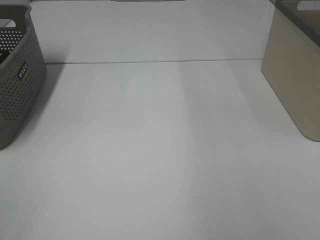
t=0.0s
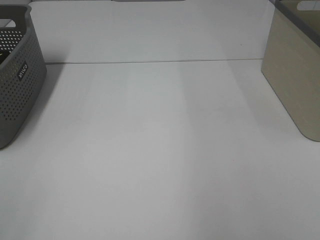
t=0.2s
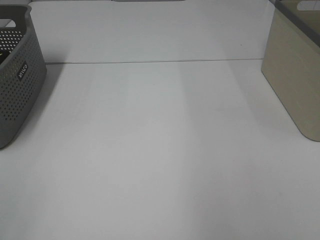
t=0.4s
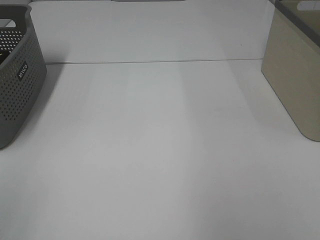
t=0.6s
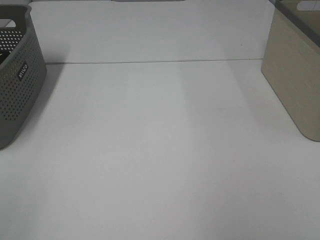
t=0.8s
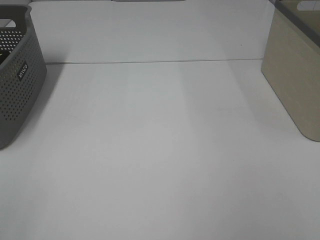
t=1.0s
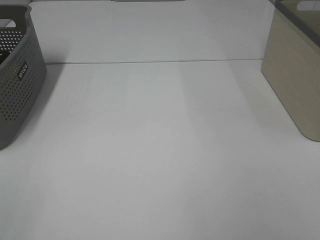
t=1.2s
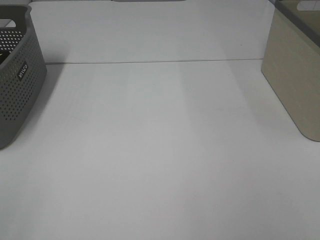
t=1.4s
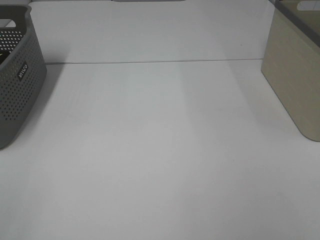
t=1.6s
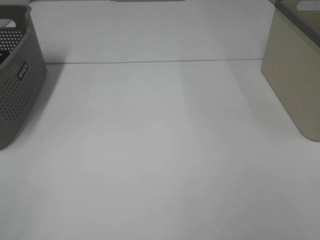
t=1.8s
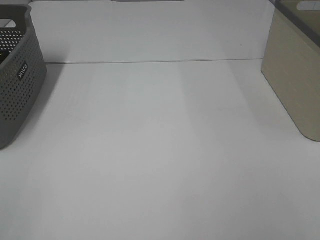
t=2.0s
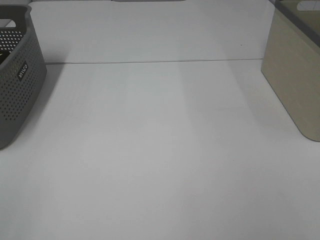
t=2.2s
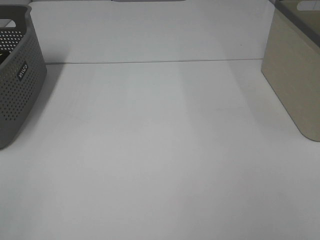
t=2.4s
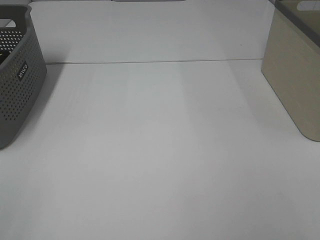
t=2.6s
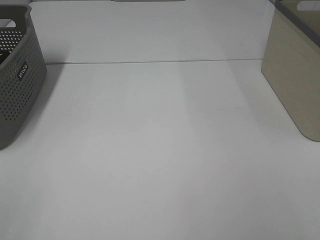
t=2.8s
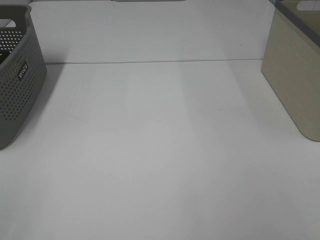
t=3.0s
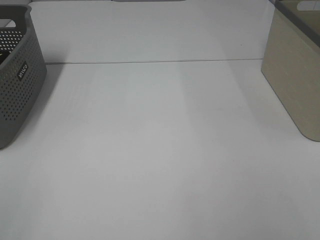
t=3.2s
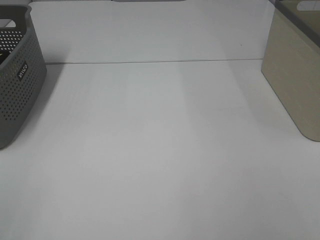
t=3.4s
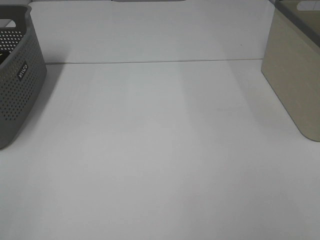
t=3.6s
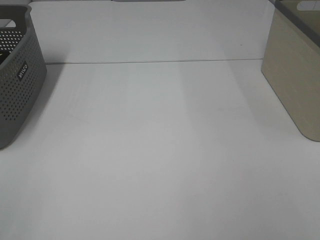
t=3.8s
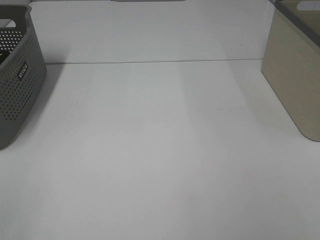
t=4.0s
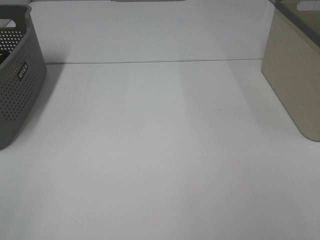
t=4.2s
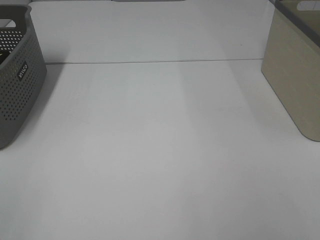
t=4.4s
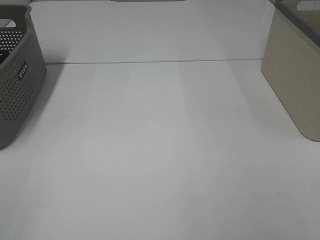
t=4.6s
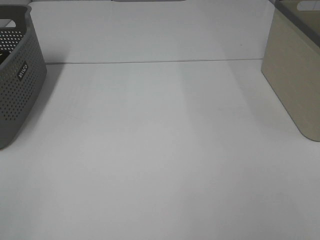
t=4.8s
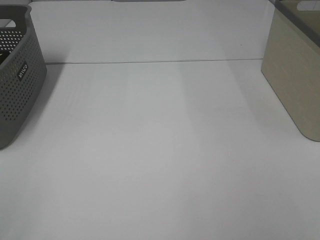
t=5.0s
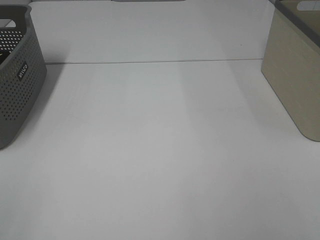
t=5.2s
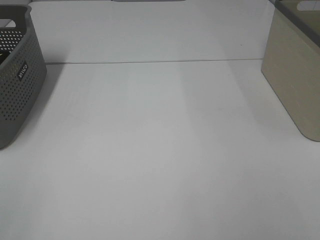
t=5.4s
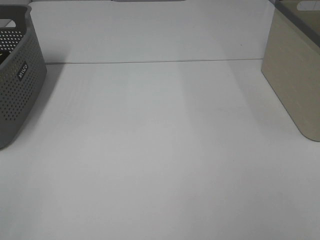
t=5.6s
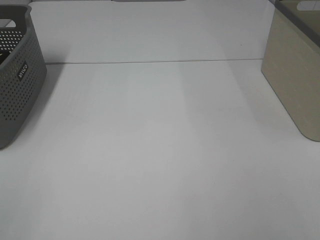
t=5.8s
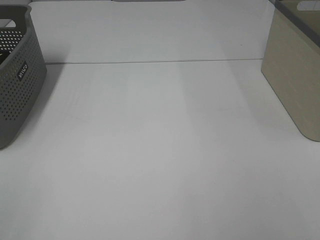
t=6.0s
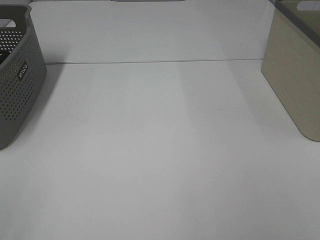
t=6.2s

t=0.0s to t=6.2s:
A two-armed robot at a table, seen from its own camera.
t=3.2s to t=6.2s: Both grippers stay put.

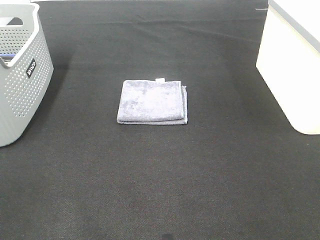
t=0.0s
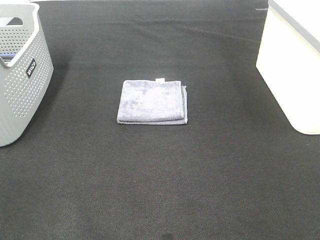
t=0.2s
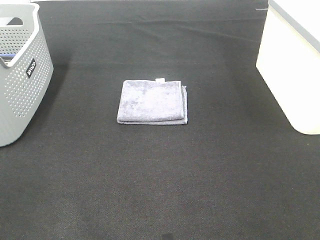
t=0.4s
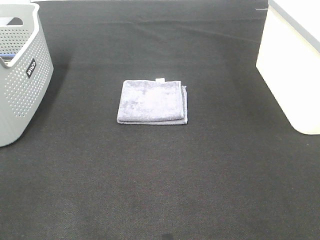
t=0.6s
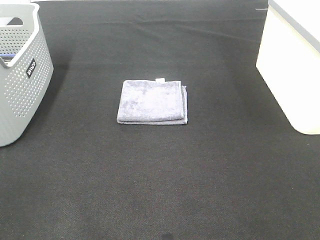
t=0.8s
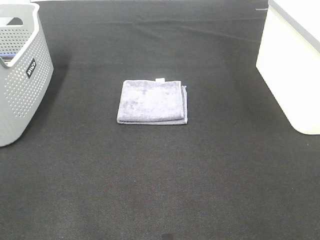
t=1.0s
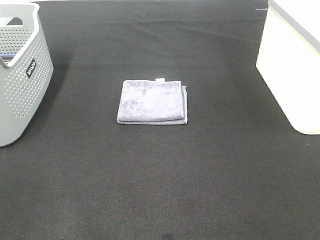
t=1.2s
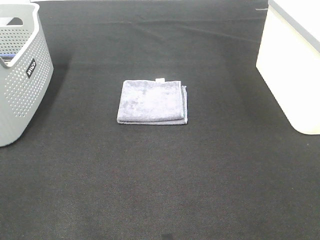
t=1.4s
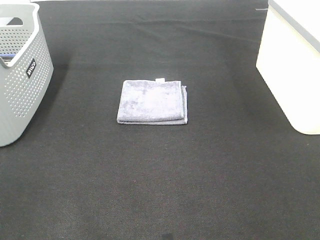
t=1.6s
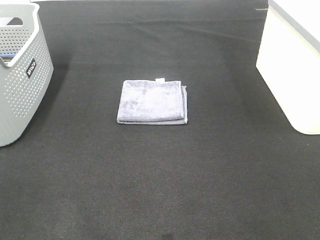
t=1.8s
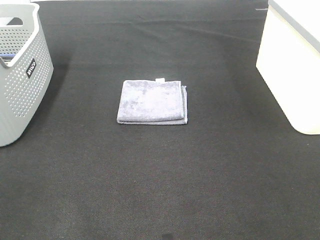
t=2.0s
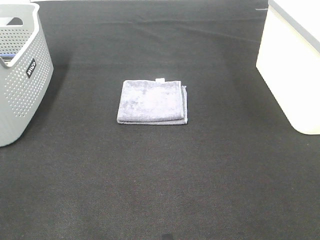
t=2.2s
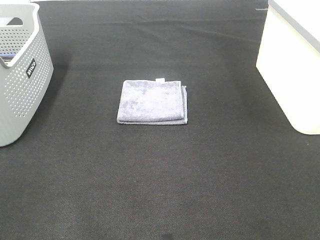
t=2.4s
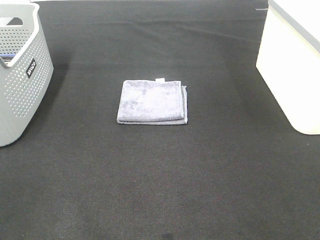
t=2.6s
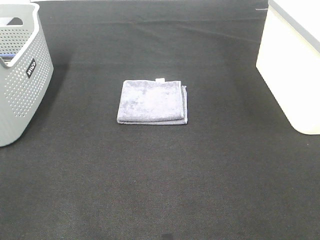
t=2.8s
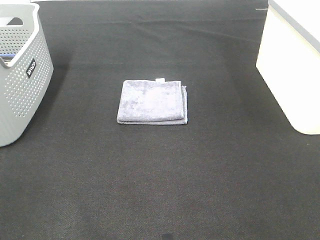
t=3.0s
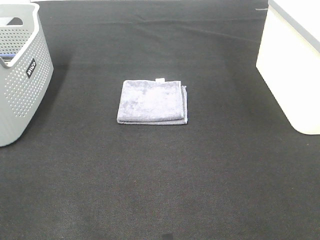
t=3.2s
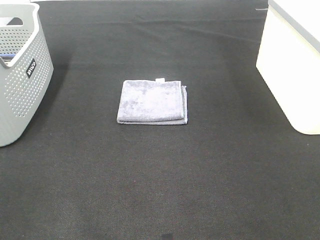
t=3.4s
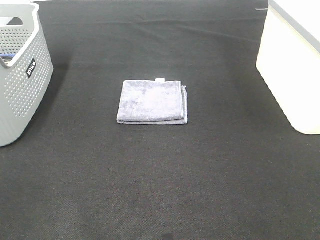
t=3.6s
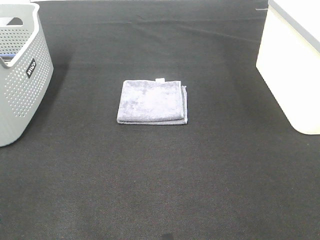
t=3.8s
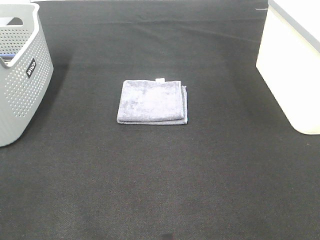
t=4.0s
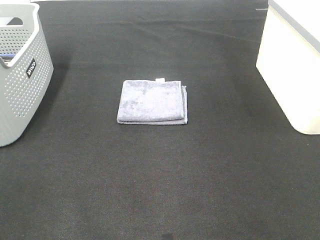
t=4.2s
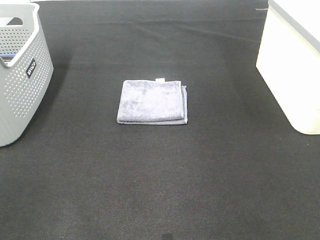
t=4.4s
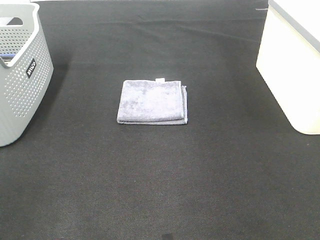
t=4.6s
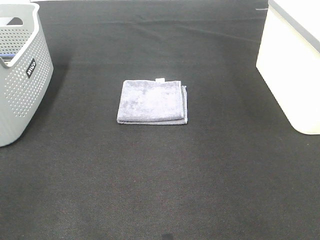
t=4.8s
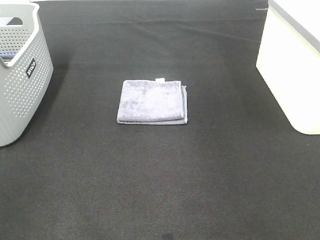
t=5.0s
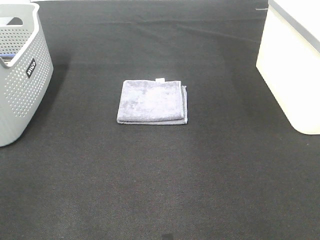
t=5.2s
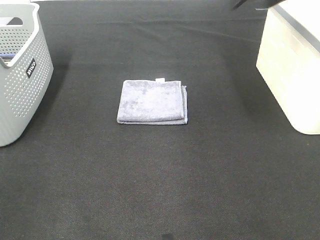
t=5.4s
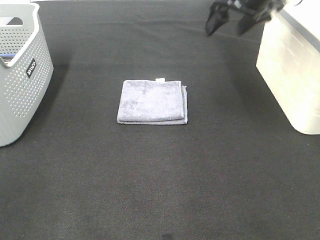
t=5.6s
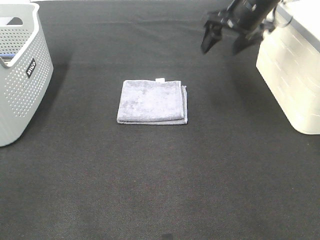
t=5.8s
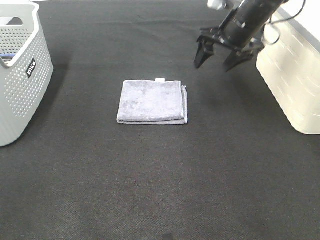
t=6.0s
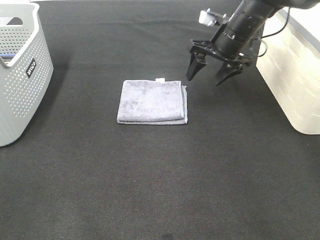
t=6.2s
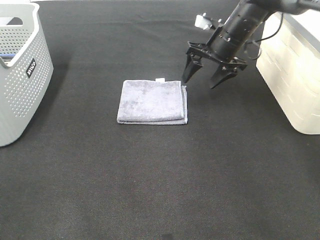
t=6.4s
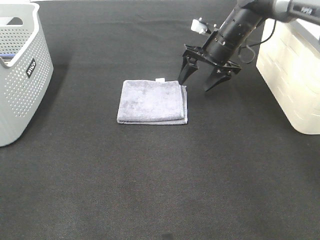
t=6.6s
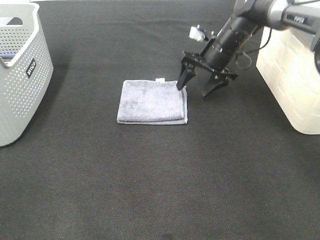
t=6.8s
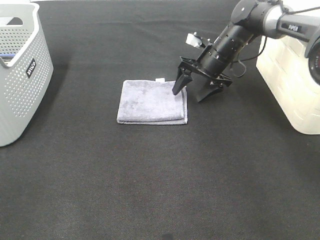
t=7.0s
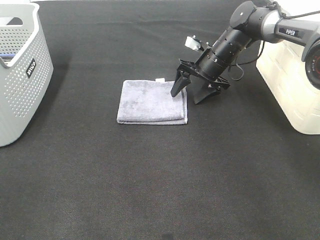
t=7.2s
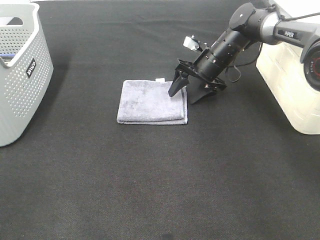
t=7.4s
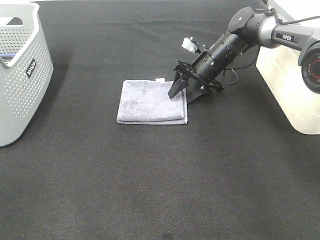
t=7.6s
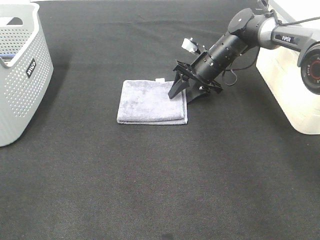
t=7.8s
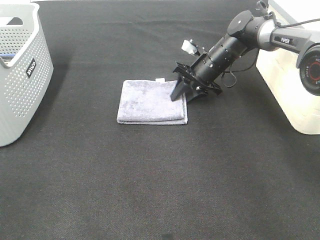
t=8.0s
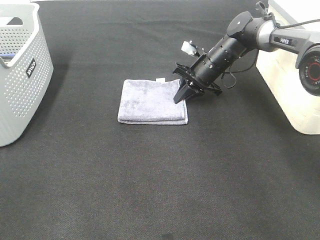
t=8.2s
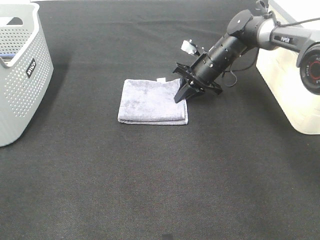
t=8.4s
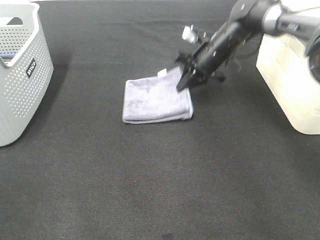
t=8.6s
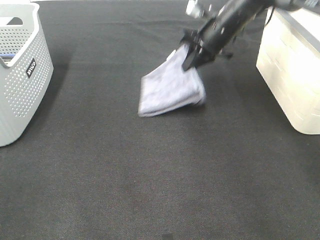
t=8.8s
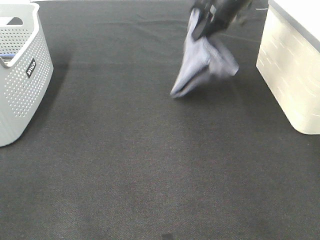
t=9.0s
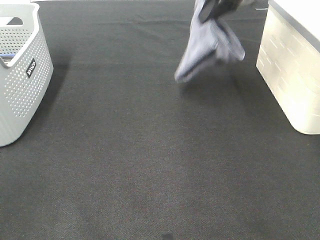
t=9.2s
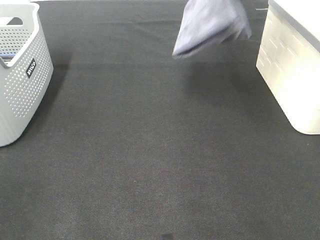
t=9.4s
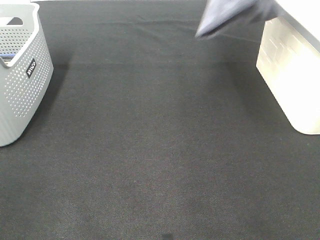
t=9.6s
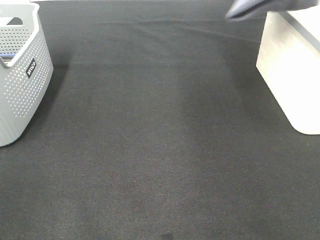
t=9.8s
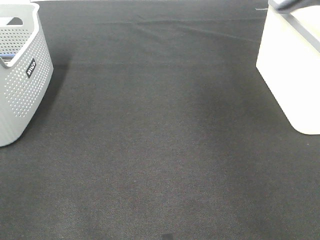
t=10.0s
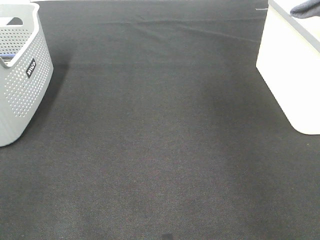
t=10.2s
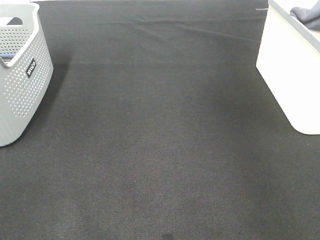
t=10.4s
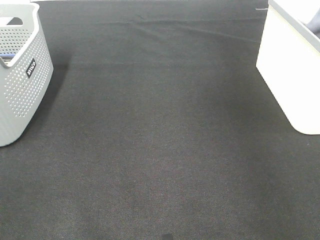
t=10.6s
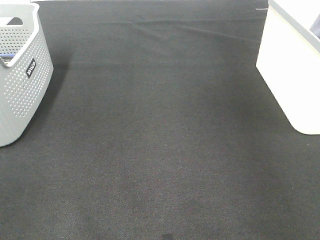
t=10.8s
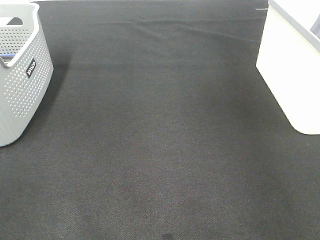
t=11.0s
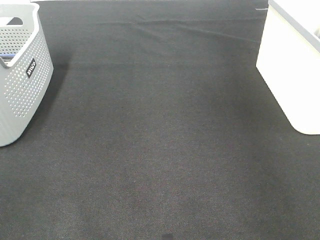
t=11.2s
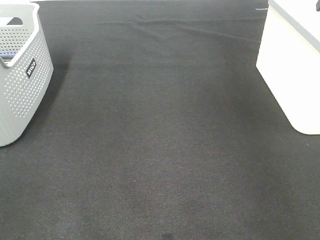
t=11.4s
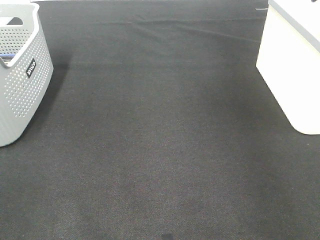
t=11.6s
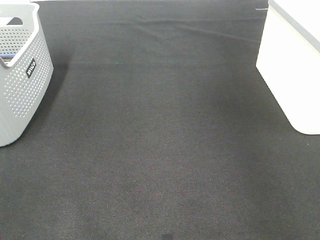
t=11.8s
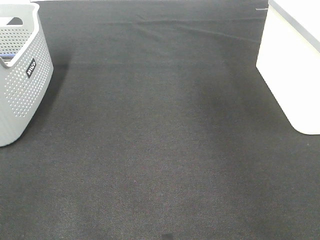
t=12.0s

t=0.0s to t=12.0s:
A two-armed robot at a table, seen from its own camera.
Step, t=0.0s to t=8.2s: Right hand: grab the folded grey towel.
Step, t=8.4s to t=11.2s: Right hand: place the grey towel in right basket.
t=0.0s to t=3.0s: Neither gripper changes place.
t=4.4s to t=6.0s: The right gripper moves forward, downward and to the left, roughly 35 cm.
t=6.0s to t=7.6s: The right gripper goes about 10 cm downward.
t=7.6s to t=9.0s: The right gripper heads upward, covering roughly 15 cm, and closes its fingers.
t=9.0s to t=10.4s: The right gripper shifts some 25 cm to the right and upward.
t=10.4s to t=12.0s: The right gripper shifts approximately 5 cm to the left, and opens its fingers.
